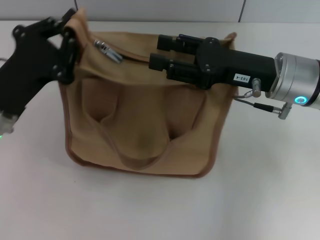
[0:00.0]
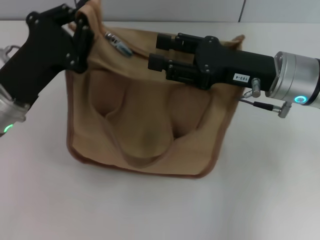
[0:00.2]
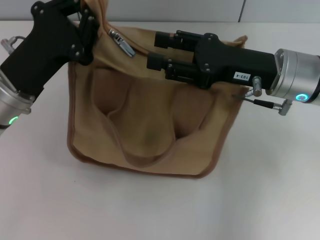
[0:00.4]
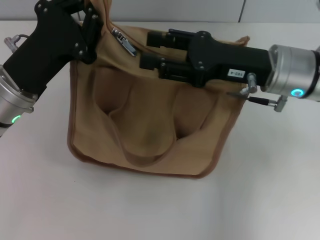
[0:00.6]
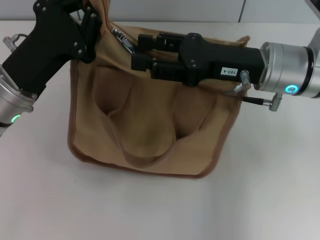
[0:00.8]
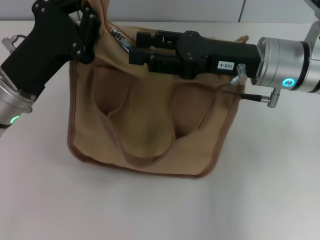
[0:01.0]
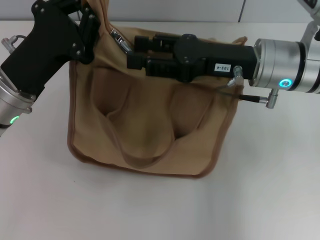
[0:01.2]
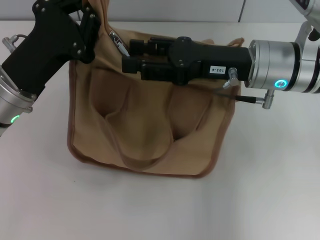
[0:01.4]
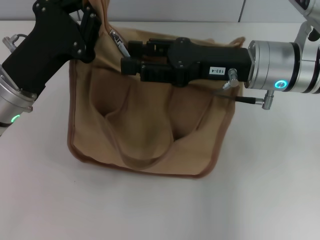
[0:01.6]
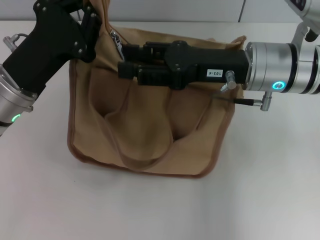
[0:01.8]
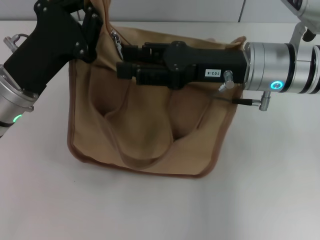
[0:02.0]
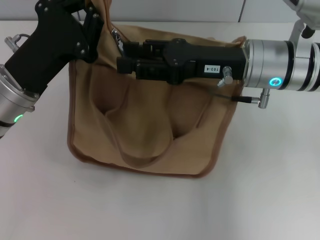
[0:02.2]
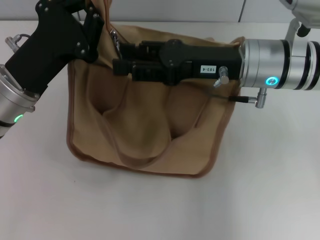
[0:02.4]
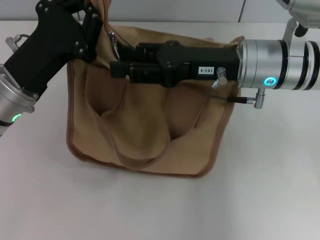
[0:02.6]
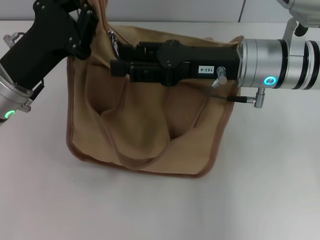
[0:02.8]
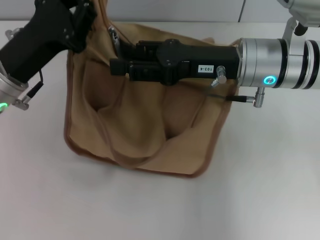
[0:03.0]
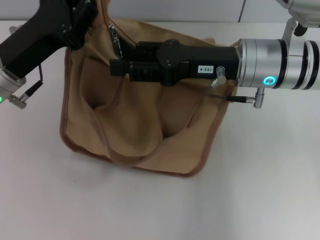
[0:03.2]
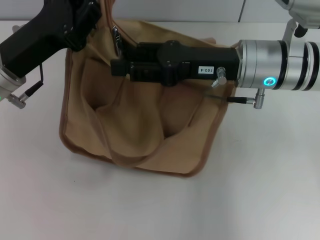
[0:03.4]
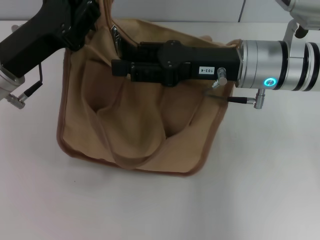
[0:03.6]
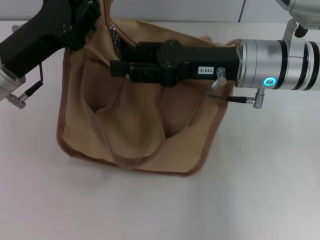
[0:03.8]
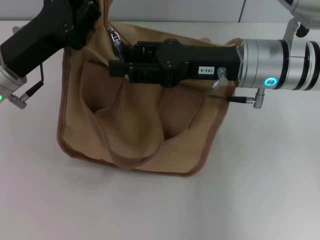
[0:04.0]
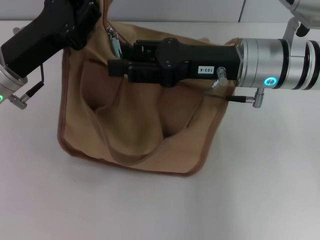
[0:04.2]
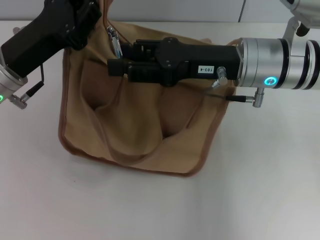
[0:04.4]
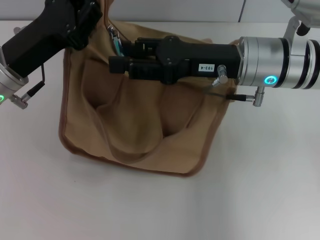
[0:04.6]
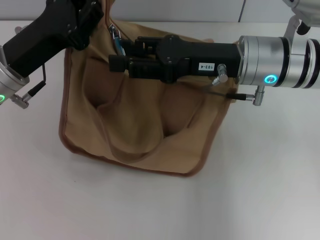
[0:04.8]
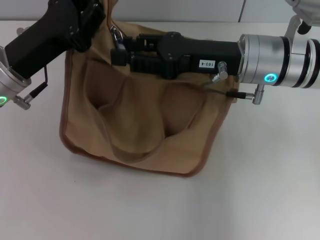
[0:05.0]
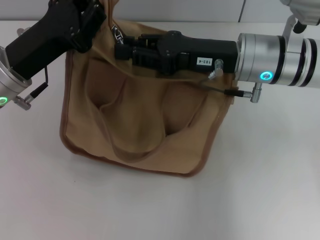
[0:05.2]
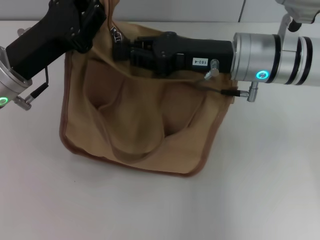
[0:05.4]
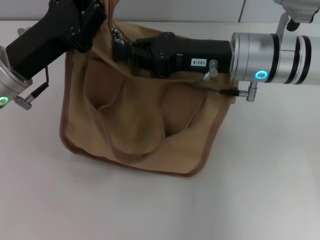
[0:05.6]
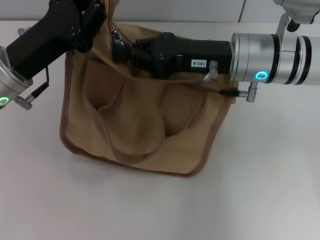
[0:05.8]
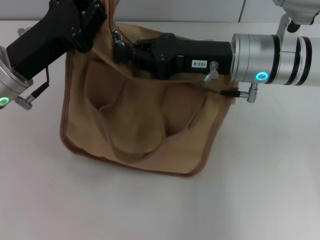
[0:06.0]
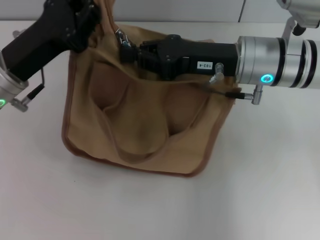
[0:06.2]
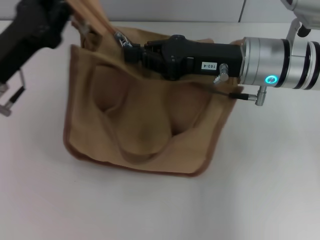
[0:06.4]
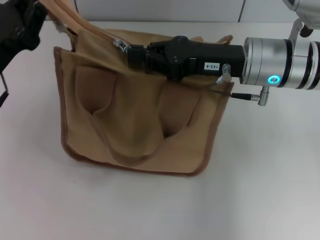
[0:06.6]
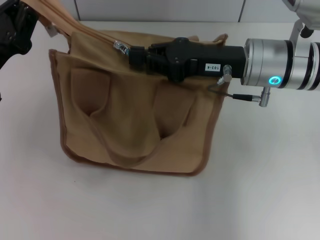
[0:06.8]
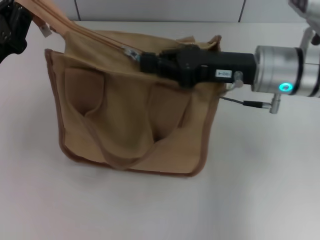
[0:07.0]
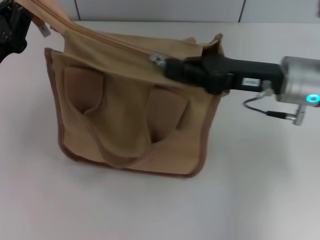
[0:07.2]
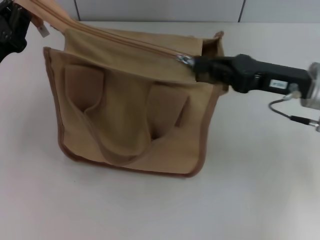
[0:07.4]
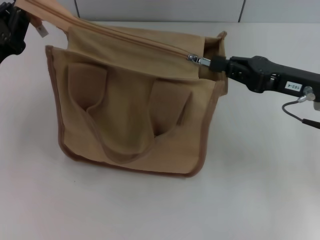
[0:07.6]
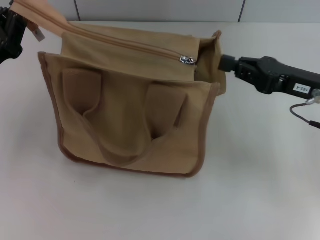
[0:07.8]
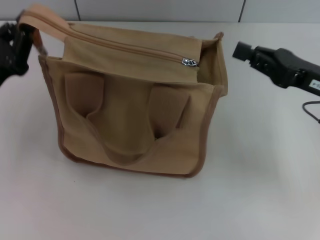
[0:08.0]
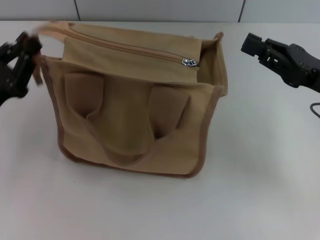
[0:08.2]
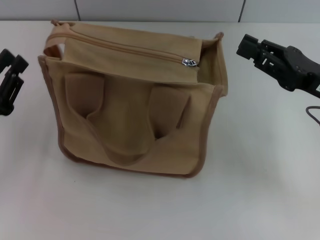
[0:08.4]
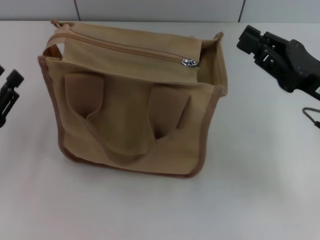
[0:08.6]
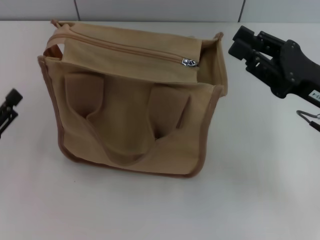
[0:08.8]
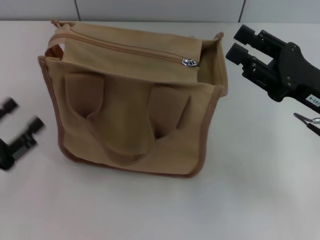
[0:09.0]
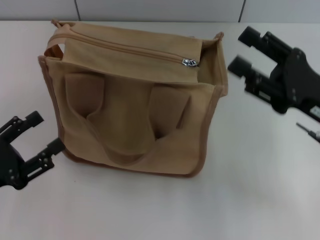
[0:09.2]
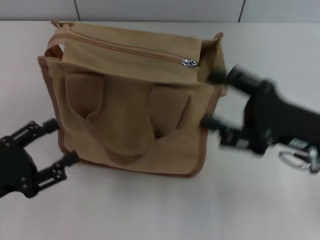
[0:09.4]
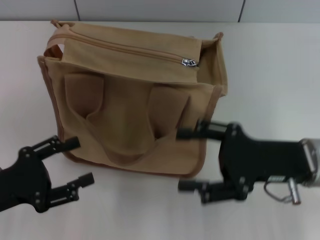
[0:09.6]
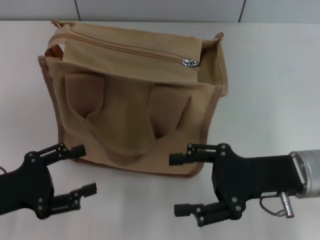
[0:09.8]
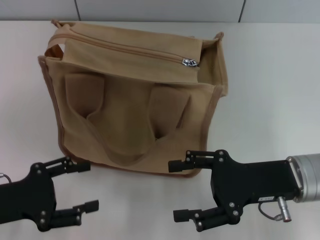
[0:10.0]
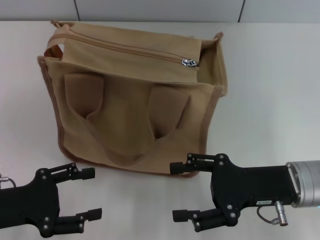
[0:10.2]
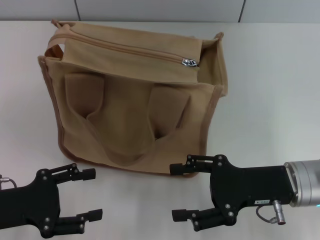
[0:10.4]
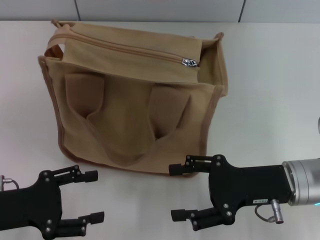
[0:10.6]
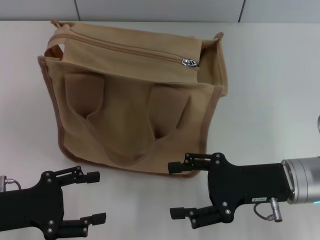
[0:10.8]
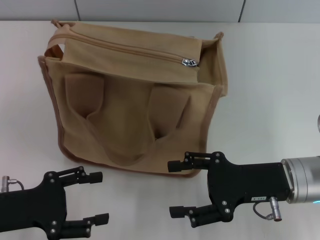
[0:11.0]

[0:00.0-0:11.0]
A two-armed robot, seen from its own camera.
Step, 0:00.0 to 0:07.6: Pull up the zipper with your right hand.
Step, 0:07.8 to 0:08.2: Grab the zipper with your left hand.
0:03.2 to 0:04.8: Both grippers stay about where they are.
0:04.8 to 0:06.2: The right gripper closes.
0:06.2 to 0:07.8: The left gripper is displaced to the left by some 5 cm. The right gripper heads to the right, covering some 10 cm.
0:07.8 to 0:09.4: The left gripper is displaced backward by some 10 cm, and opens up. Meanwhile the right gripper is displaced backward by about 5 cm, and opens up.

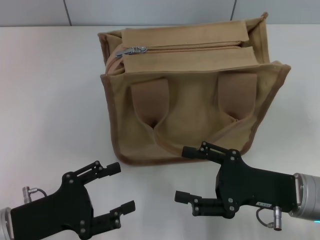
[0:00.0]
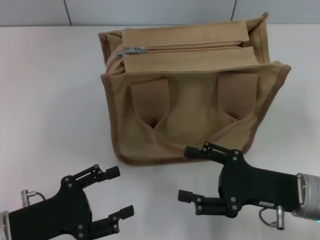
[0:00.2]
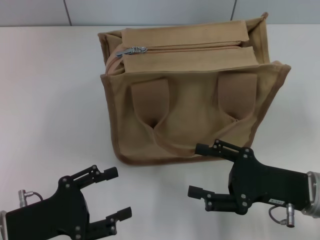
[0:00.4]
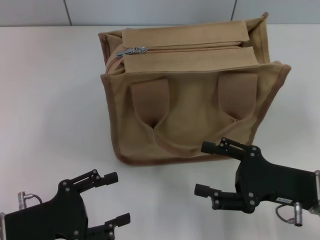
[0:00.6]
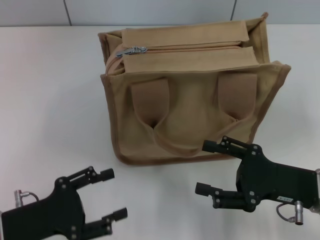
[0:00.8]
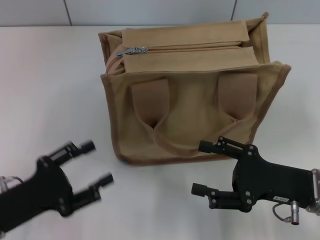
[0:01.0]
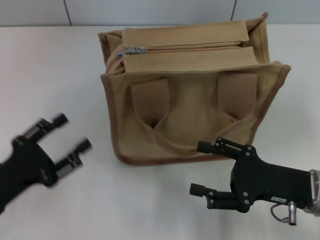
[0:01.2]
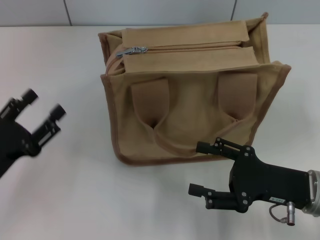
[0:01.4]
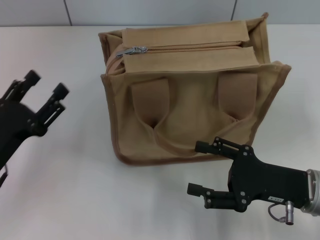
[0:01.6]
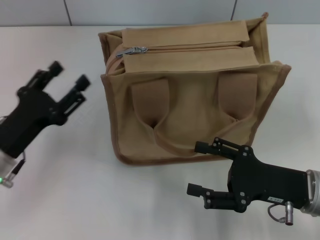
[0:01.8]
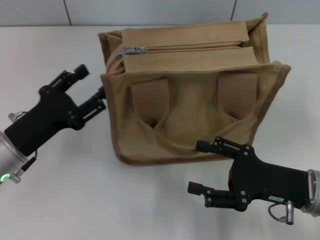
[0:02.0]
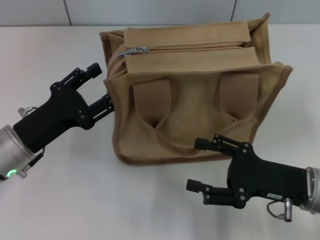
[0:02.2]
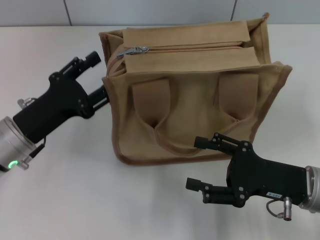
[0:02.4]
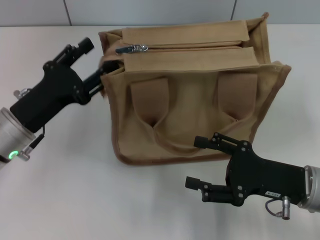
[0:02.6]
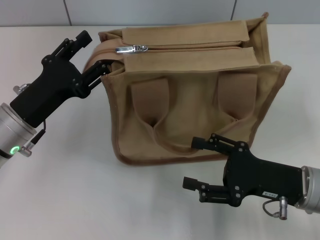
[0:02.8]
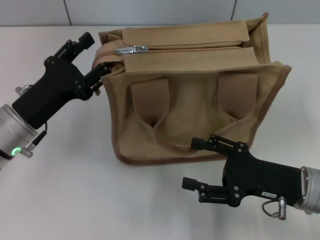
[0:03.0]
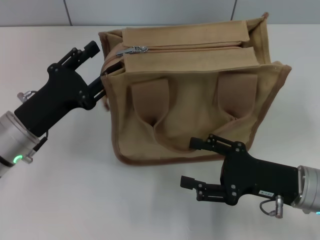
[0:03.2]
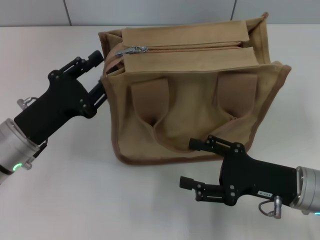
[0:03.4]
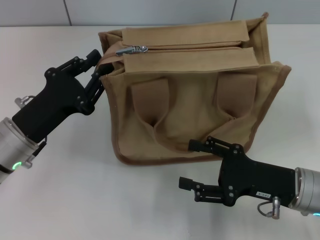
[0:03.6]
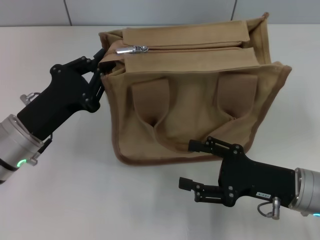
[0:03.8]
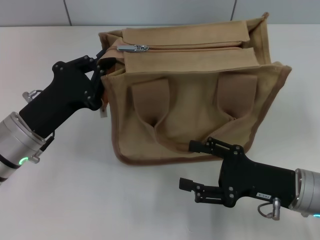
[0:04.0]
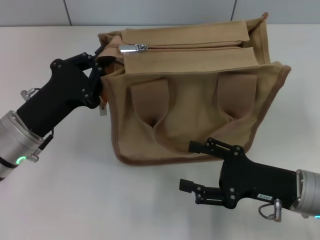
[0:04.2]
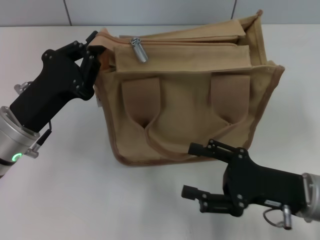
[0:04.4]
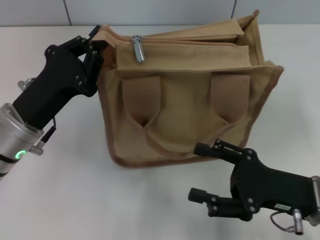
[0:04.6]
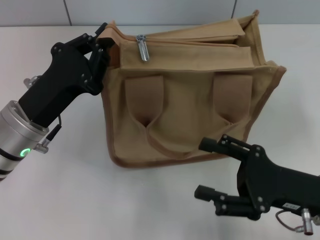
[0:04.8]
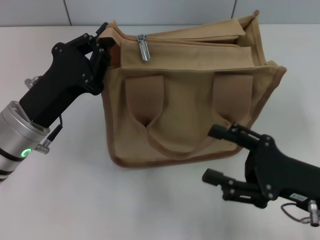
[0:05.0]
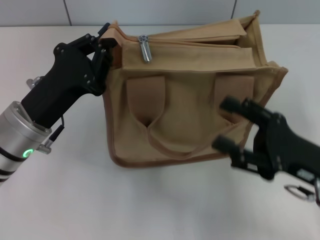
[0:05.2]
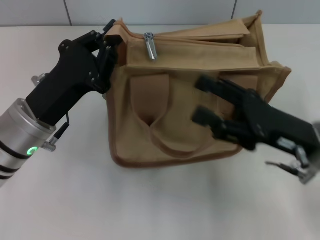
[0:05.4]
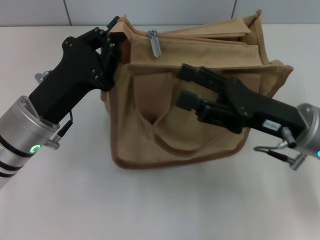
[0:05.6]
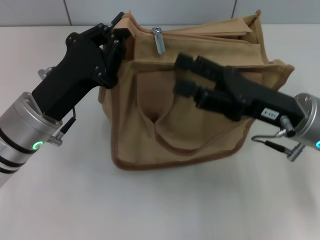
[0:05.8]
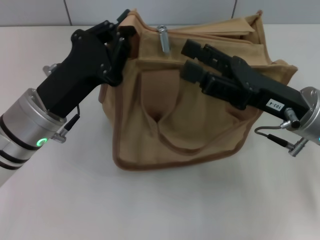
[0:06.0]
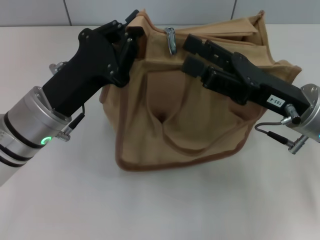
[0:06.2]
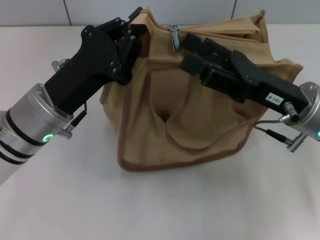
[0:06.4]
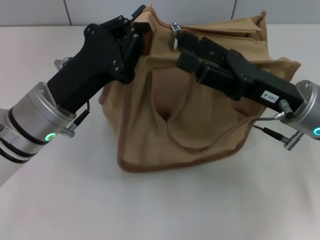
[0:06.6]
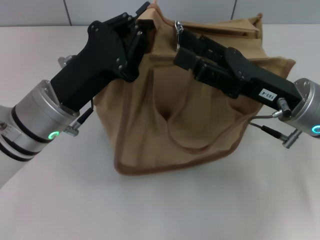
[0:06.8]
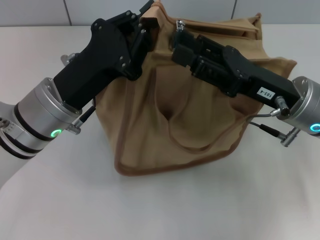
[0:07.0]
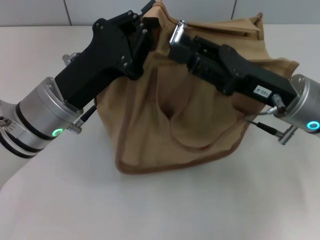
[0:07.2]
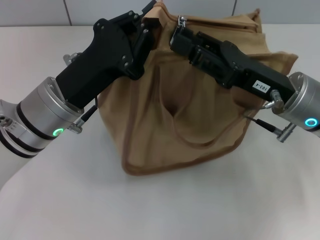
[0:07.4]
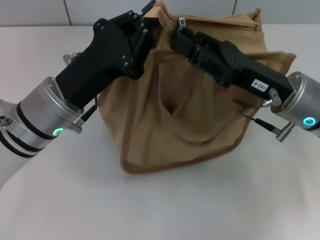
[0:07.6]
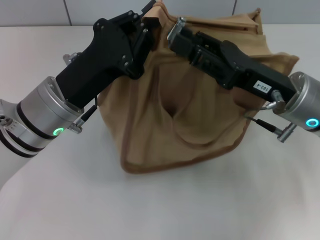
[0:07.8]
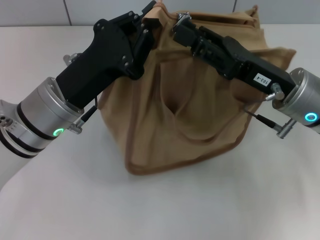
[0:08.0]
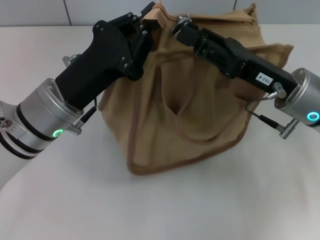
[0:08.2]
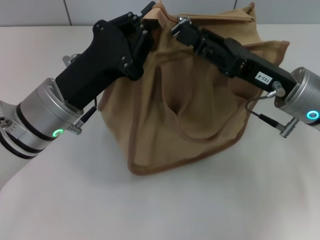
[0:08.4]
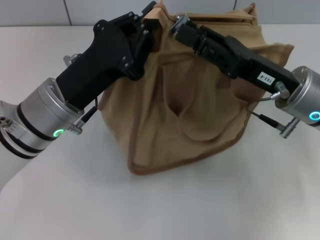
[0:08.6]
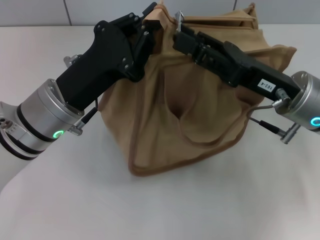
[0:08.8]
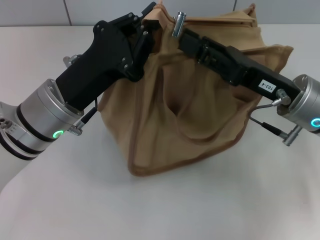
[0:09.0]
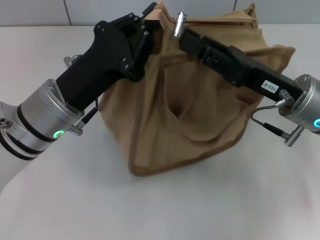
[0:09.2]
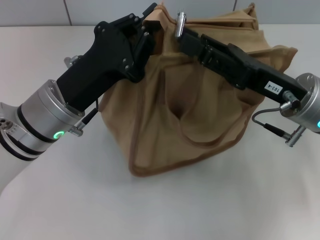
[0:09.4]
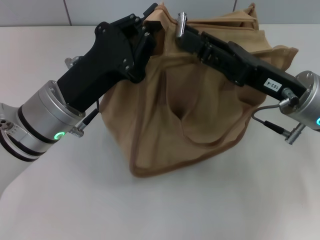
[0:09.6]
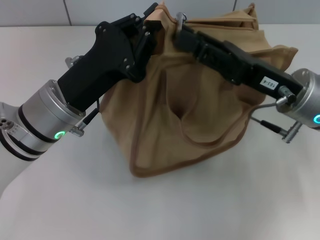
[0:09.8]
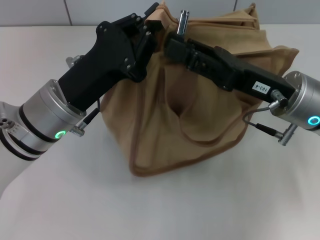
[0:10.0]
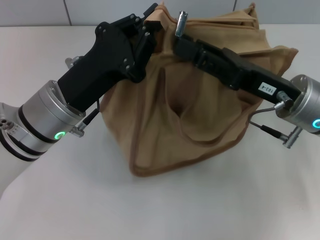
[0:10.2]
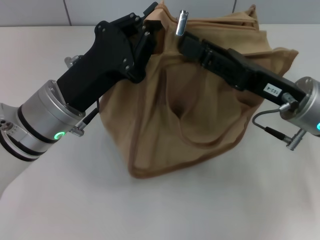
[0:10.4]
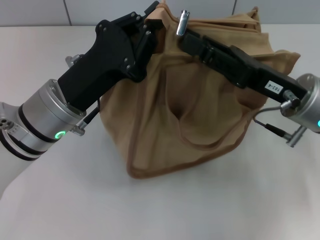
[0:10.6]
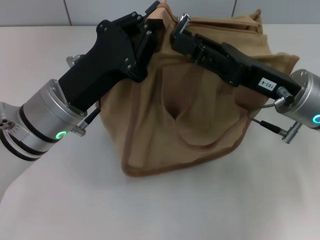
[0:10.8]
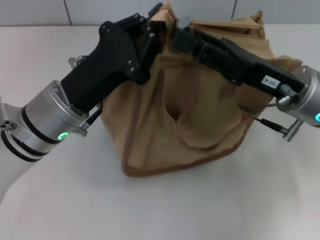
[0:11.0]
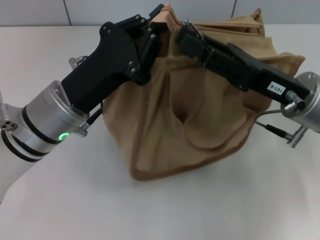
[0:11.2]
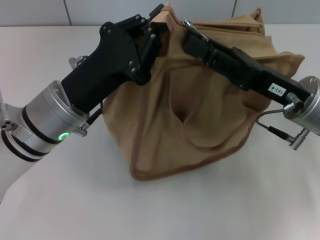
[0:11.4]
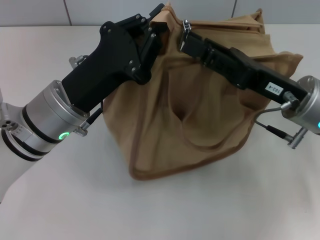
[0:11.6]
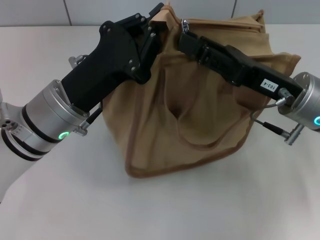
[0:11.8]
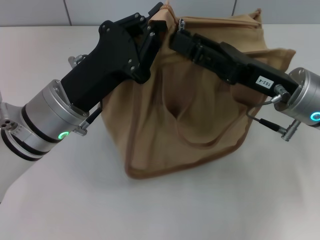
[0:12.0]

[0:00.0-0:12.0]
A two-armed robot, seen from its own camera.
0:00.0 to 0:01.6: The left gripper changes place by approximately 5 cm.
0:01.6 to 0:03.0: The left gripper travels forward by approximately 5 cm.
0:03.0 to 0:04.4: The left gripper closes its fingers.
0:04.4 to 0:06.0: The right gripper is displaced forward and upward by about 10 cm.
0:06.0 to 0:07.6: The right gripper closes up.
0:07.6 to 0:12.0: The grippers move only a little.
